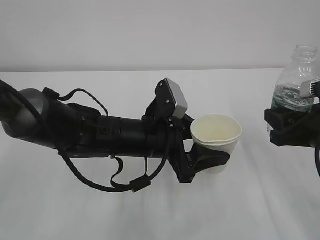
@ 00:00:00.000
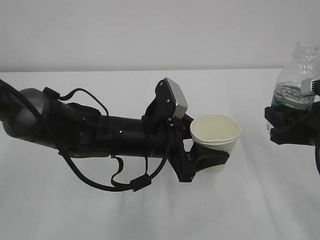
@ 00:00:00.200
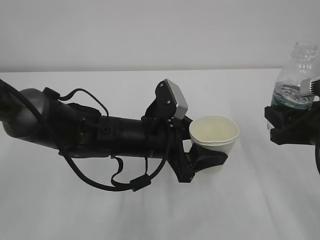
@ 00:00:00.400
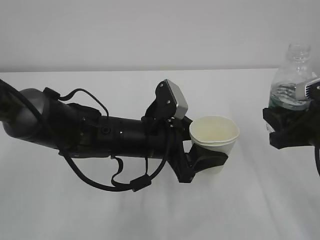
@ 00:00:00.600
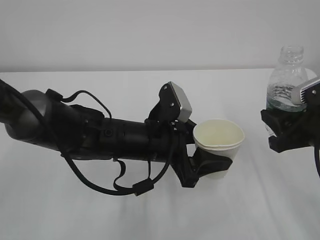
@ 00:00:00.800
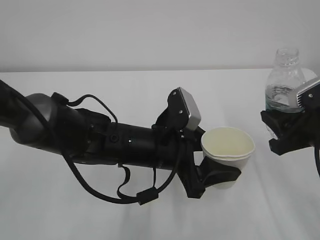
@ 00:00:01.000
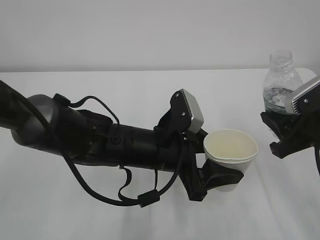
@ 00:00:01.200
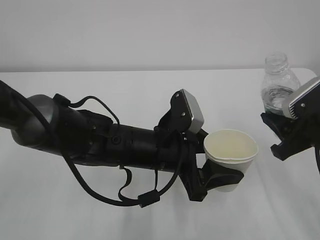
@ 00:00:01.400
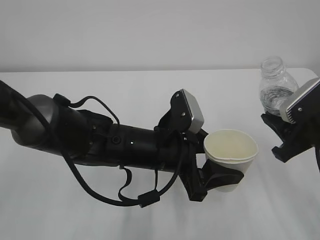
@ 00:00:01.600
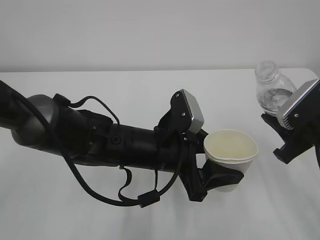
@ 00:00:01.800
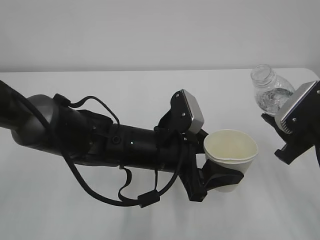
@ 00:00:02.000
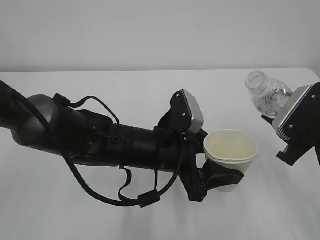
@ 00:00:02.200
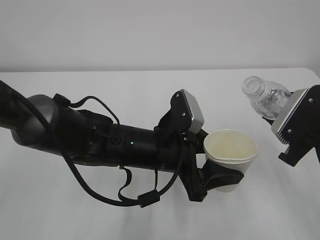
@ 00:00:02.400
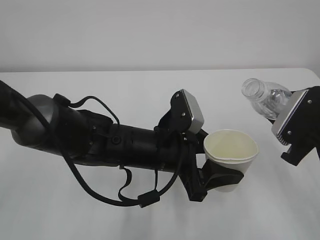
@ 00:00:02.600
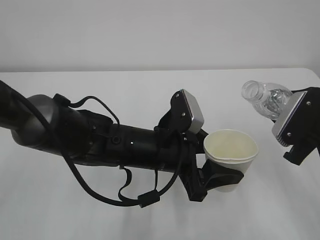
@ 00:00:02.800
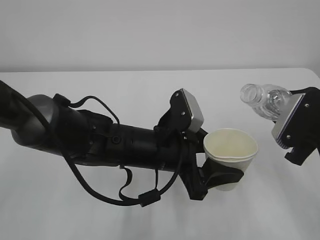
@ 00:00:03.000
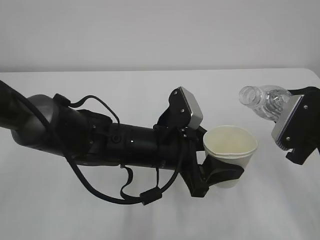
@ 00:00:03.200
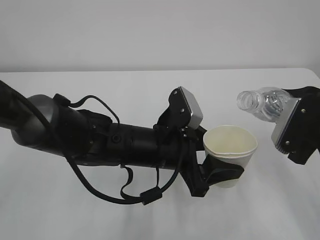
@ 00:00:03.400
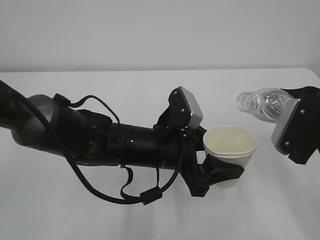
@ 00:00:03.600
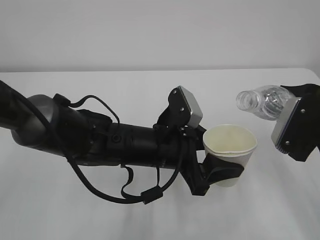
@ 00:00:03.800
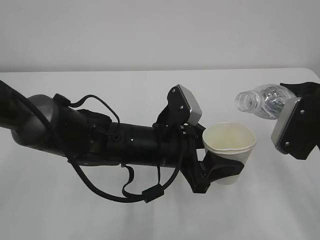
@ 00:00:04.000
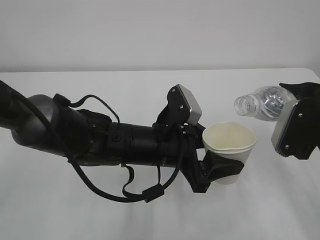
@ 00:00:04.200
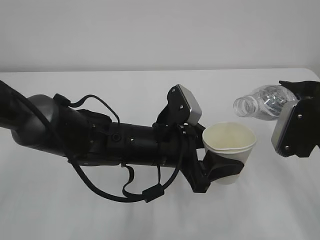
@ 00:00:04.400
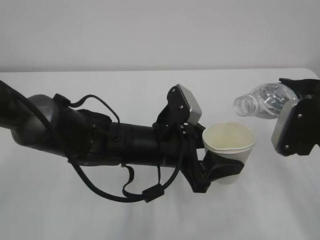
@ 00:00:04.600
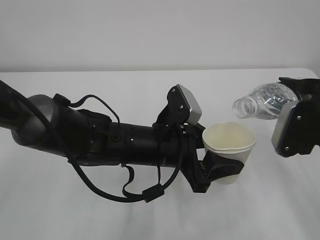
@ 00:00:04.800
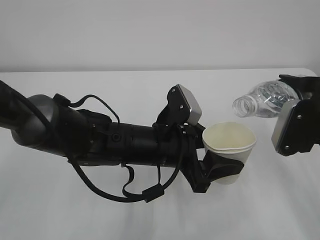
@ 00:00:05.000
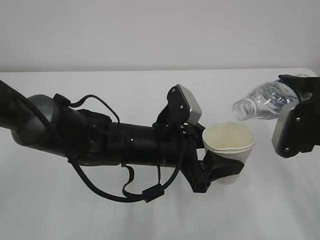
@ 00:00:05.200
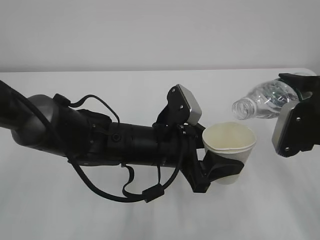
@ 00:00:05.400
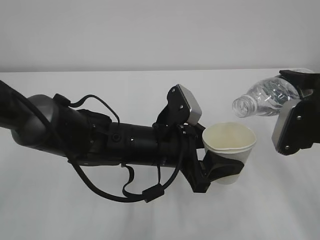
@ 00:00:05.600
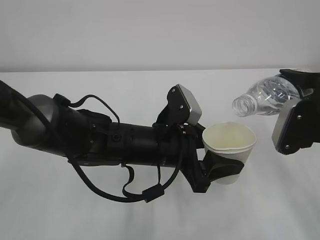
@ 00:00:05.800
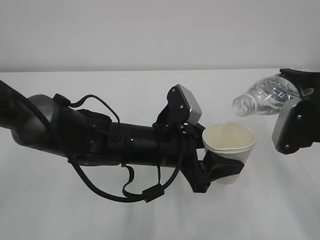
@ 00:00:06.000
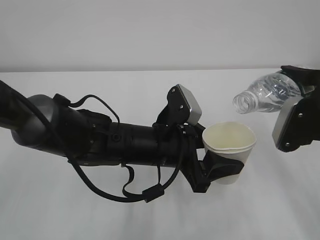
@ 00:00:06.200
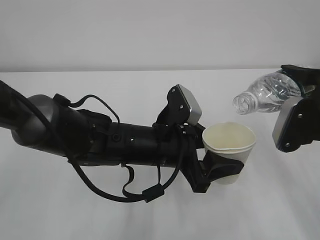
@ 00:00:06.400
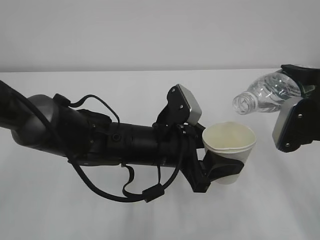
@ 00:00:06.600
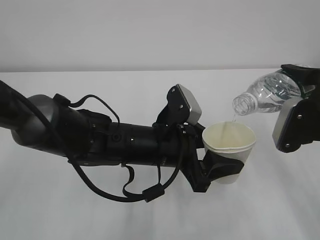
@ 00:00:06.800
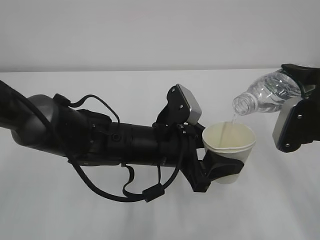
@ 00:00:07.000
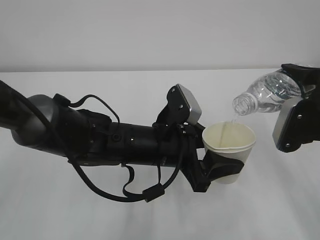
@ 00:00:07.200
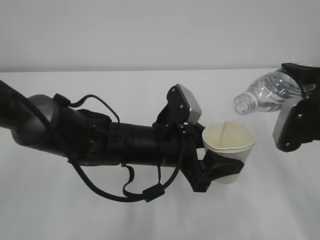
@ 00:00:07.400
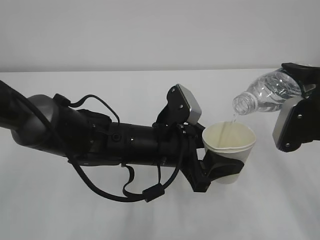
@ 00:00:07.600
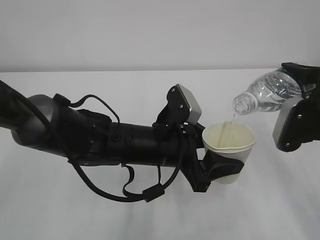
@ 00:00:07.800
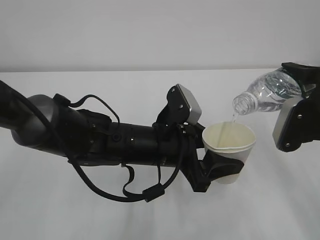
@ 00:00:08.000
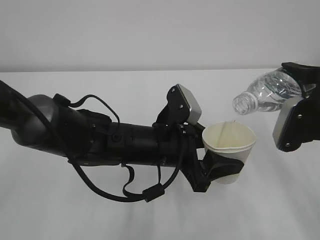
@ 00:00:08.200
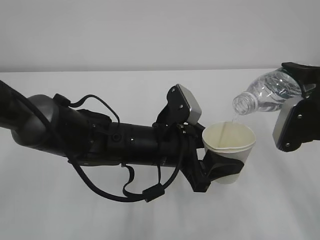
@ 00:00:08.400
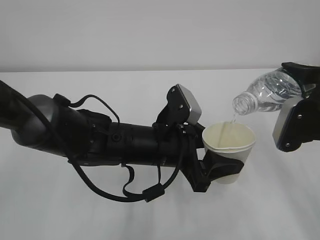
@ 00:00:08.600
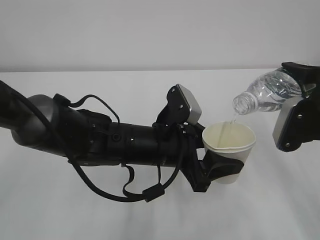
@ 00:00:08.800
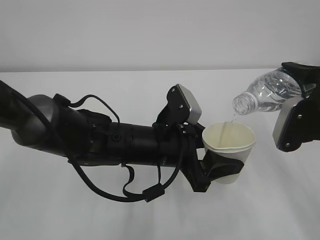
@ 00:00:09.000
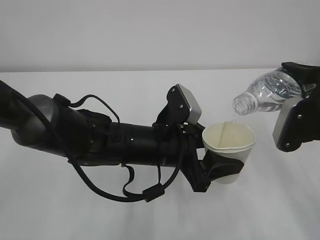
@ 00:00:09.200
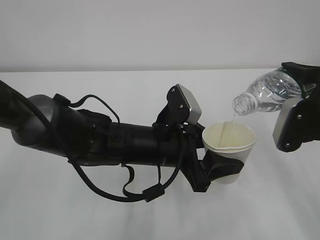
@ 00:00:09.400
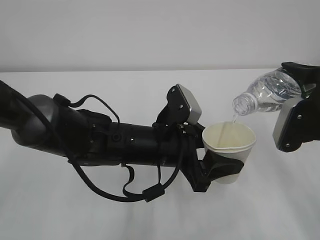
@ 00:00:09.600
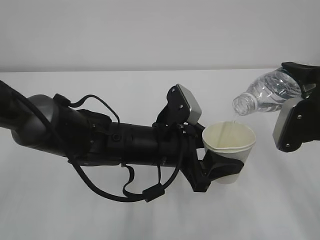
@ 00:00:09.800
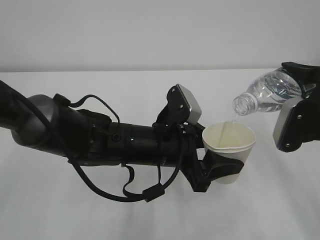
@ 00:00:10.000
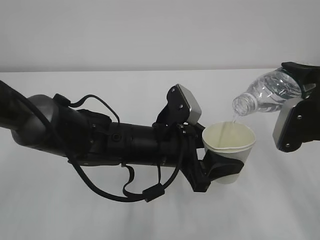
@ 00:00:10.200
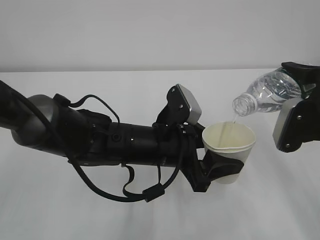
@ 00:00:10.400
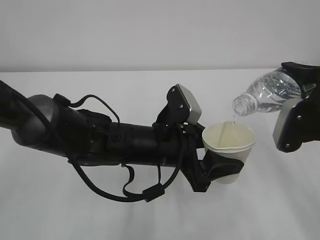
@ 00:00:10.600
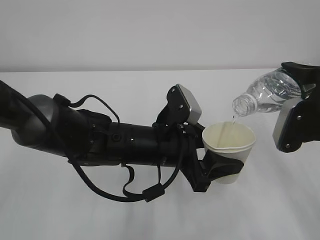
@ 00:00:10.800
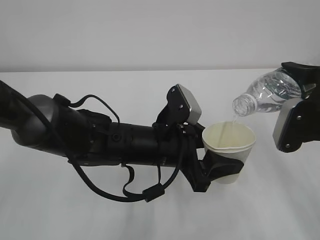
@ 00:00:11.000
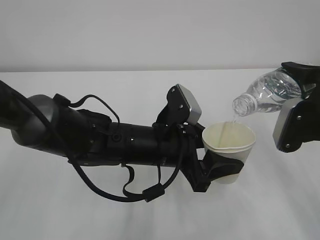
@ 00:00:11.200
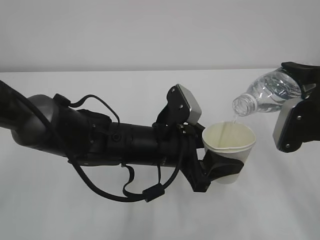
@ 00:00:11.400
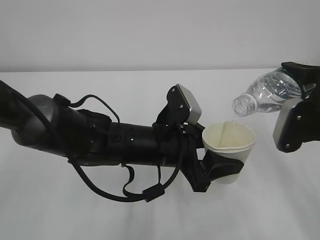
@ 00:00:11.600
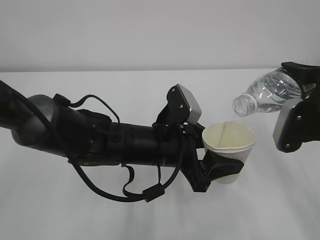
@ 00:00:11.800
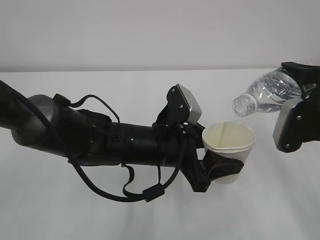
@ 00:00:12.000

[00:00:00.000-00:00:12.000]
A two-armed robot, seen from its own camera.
00:00:03.000 to 00:00:04.400: The grippers make only small movements.
00:00:04.400 to 00:00:06.000: There are only small adjustments of the grippers.
00:00:06.000 to 00:00:09.000: The two grippers keep their place.
00:00:09.000 to 00:00:12.000: The two grippers keep their place.

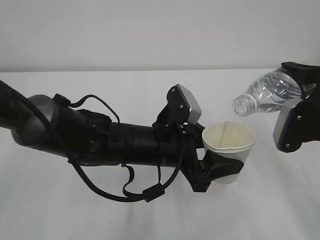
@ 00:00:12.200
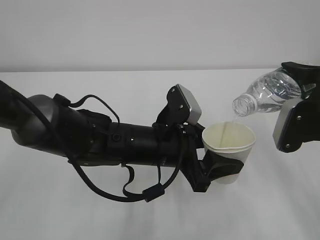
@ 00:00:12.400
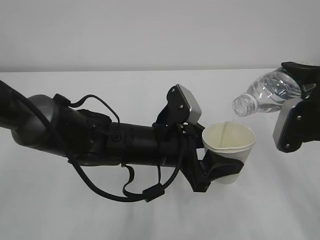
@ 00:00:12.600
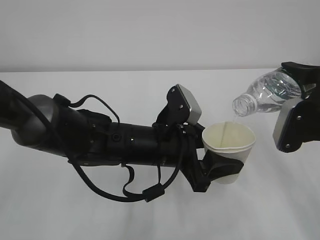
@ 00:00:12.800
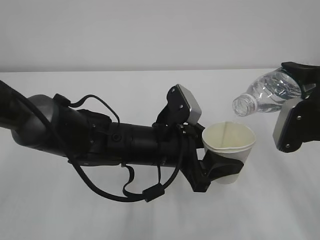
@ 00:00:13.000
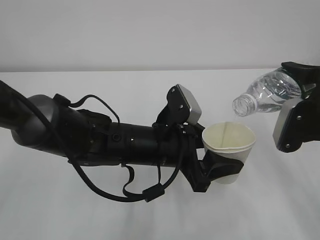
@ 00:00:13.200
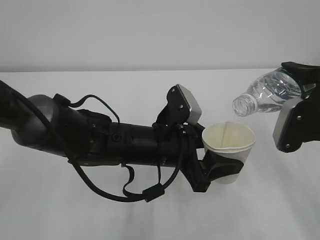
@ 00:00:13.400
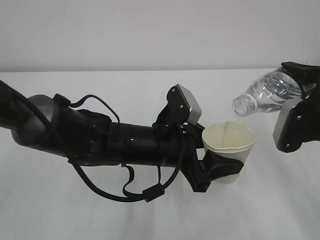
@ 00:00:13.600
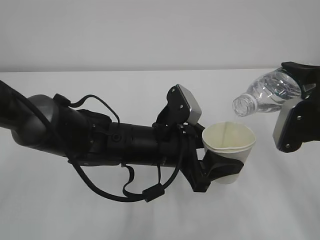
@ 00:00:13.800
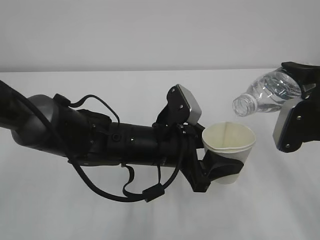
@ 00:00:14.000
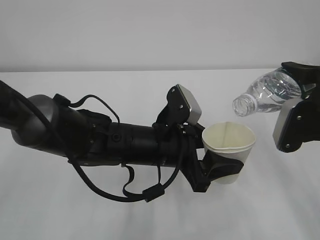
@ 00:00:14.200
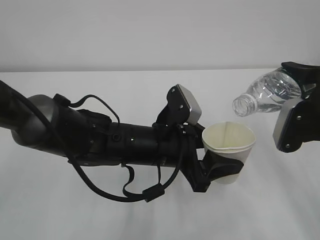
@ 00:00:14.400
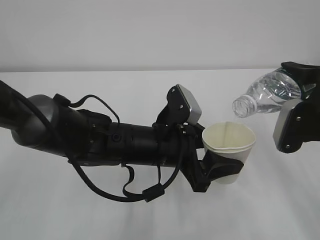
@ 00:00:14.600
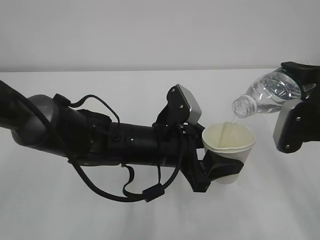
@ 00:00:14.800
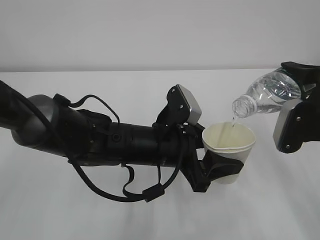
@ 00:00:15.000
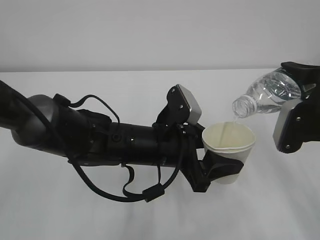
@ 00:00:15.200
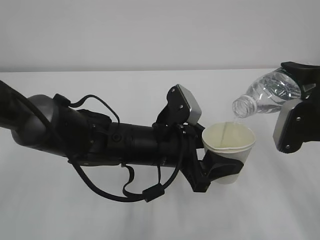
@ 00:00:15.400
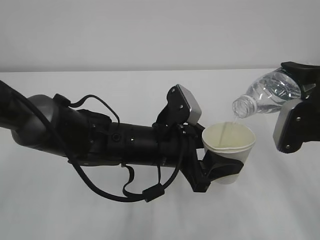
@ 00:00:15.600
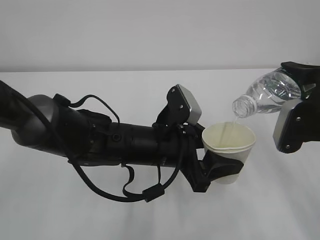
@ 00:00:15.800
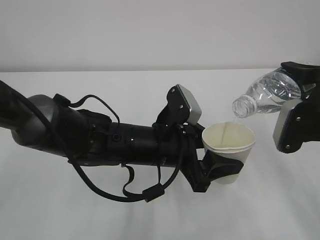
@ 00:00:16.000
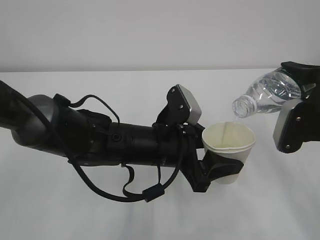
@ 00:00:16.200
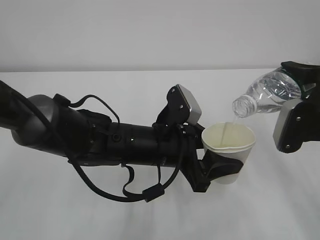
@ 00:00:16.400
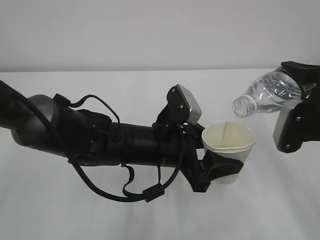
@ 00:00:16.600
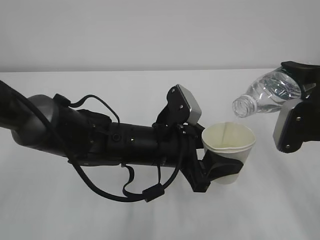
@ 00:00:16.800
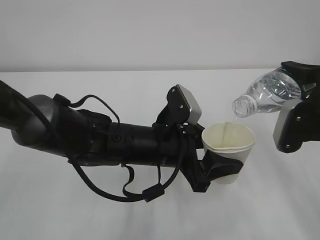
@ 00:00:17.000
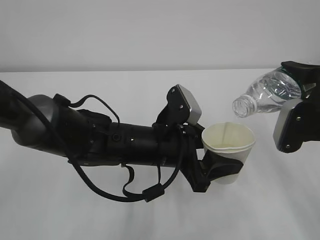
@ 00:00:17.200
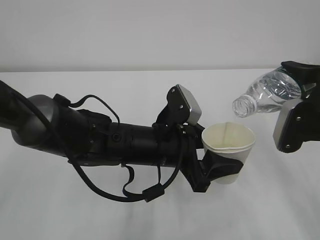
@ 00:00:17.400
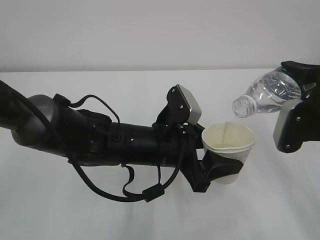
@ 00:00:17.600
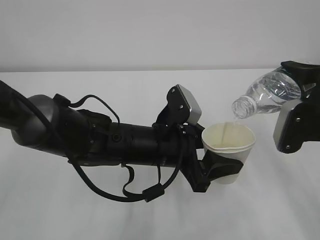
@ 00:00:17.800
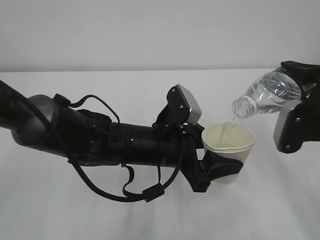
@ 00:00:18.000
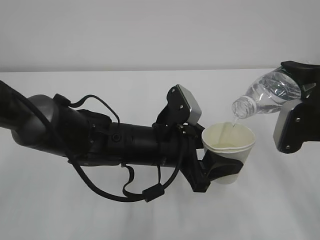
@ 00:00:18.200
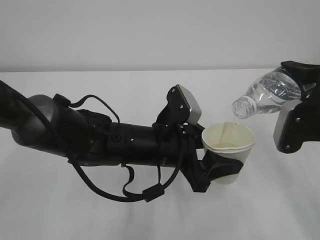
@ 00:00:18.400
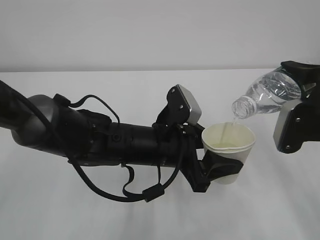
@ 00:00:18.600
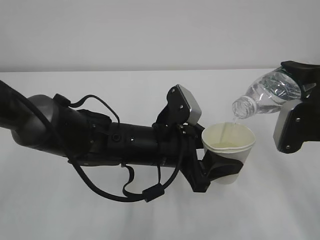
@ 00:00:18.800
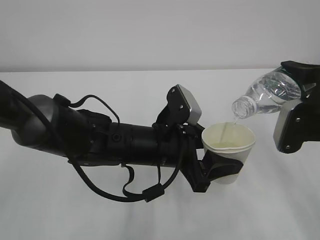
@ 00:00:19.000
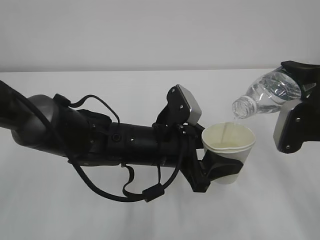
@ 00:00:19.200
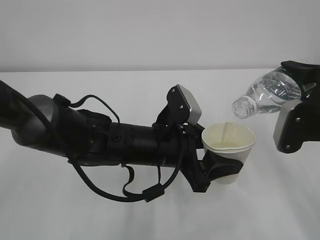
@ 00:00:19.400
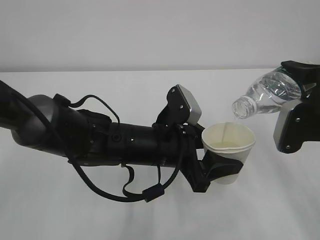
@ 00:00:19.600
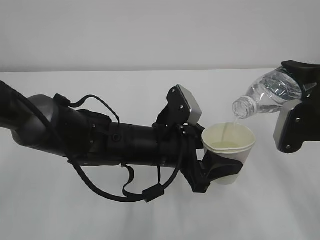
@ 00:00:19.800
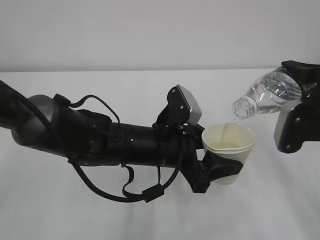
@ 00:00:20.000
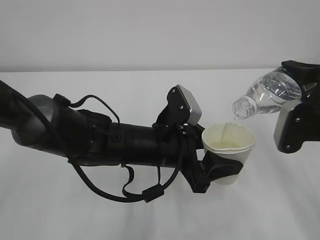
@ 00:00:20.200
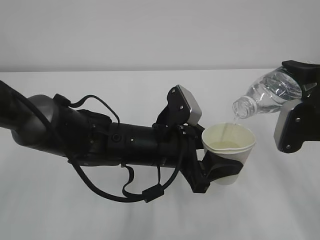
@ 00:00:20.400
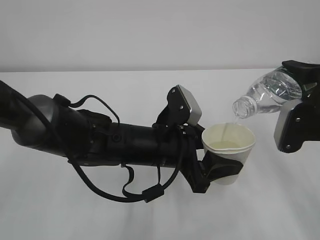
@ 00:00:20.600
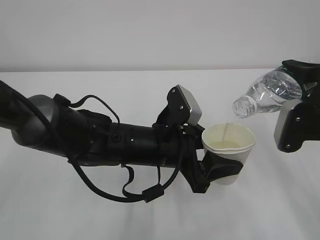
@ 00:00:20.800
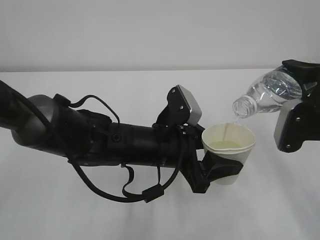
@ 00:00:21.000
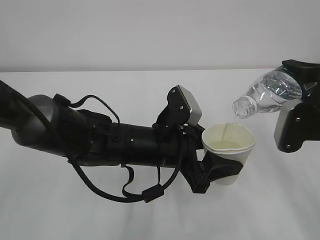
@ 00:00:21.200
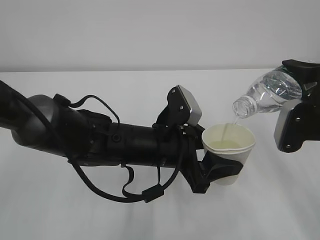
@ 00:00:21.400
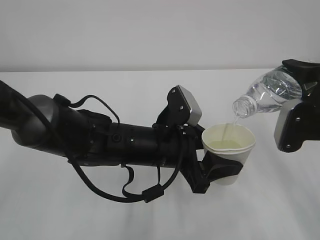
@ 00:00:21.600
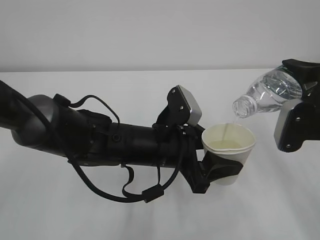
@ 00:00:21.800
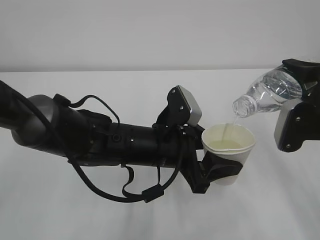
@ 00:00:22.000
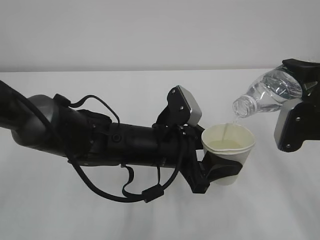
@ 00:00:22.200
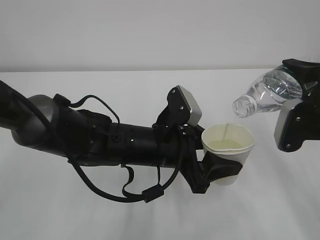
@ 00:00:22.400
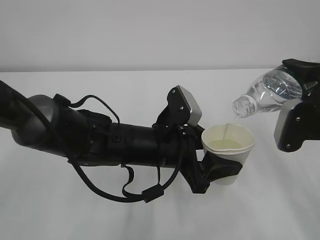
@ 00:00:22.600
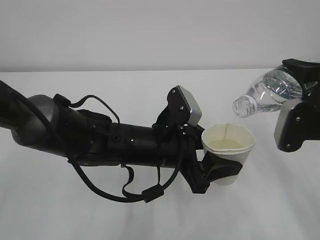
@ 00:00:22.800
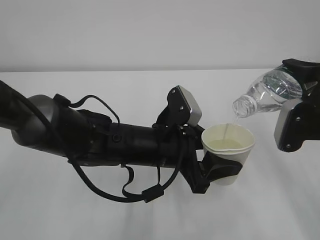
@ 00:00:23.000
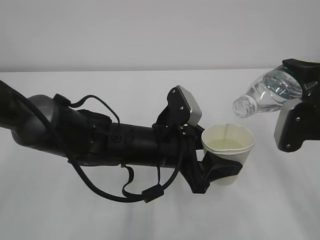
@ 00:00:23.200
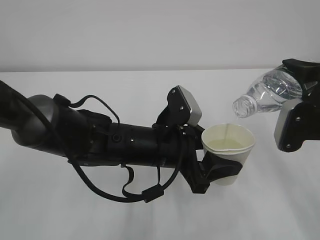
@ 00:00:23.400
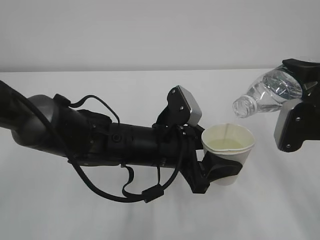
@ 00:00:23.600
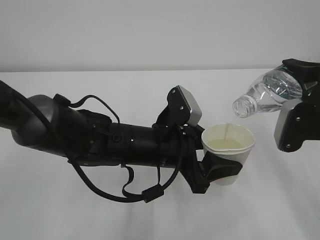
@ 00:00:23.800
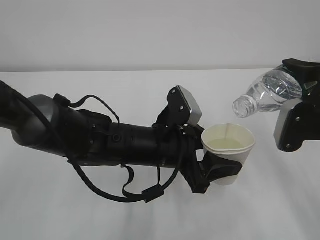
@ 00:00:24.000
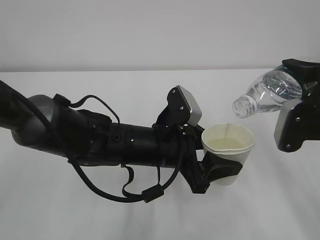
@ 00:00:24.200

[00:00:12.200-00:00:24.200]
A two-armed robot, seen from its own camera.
00:00:12.200 to 00:00:24.200: Both grippers stay about where they are.
